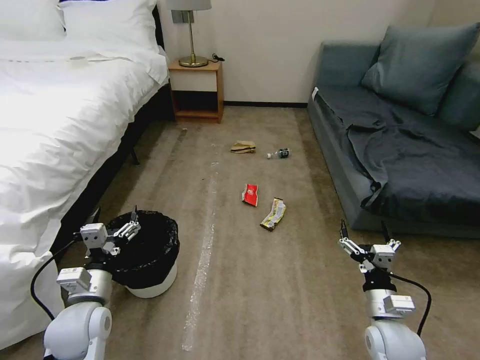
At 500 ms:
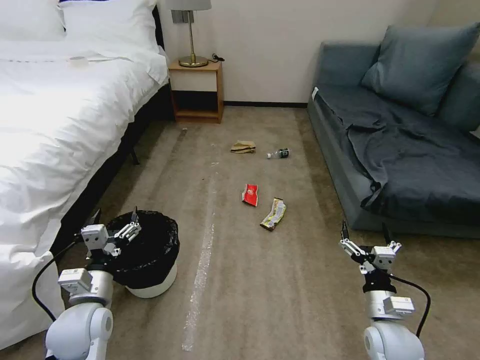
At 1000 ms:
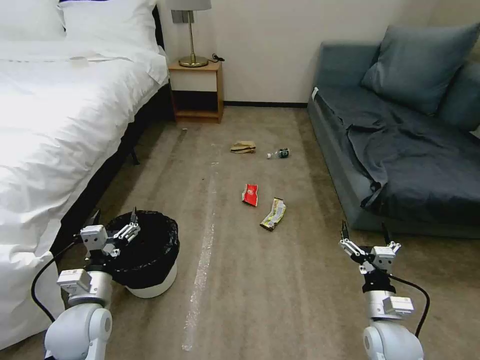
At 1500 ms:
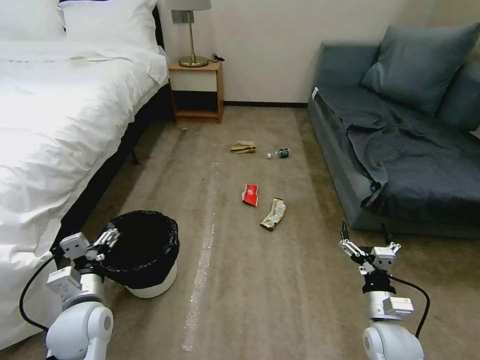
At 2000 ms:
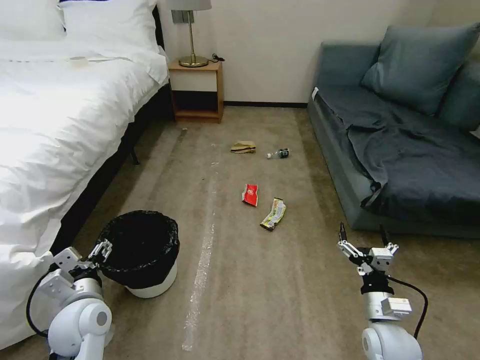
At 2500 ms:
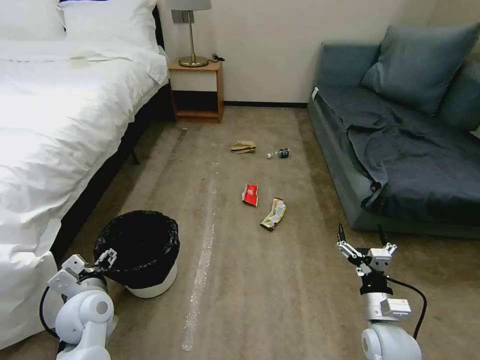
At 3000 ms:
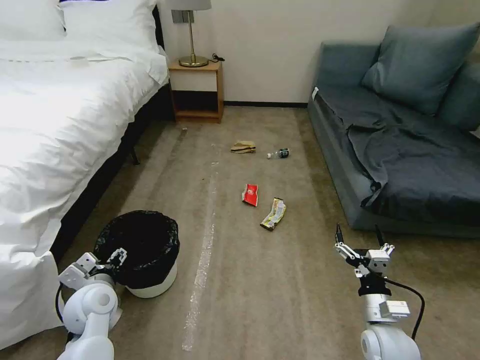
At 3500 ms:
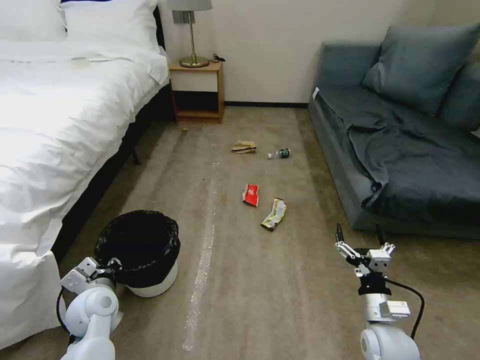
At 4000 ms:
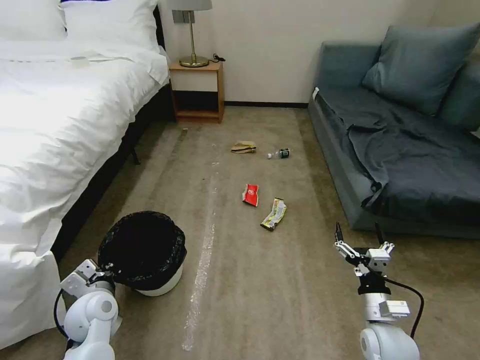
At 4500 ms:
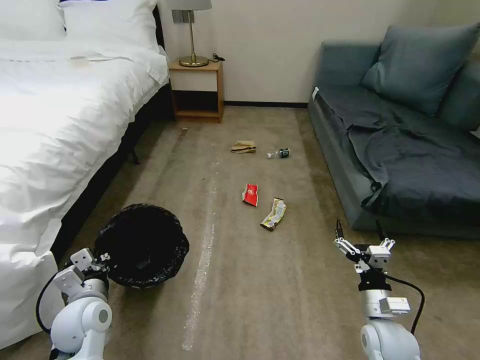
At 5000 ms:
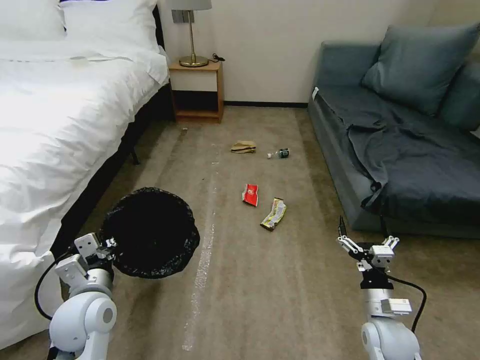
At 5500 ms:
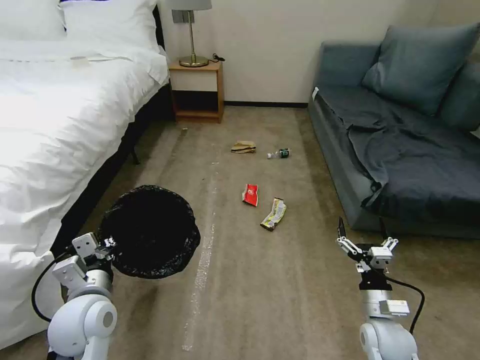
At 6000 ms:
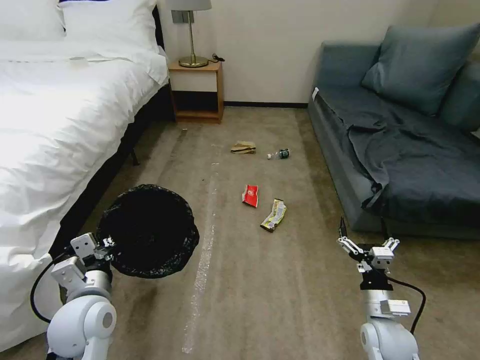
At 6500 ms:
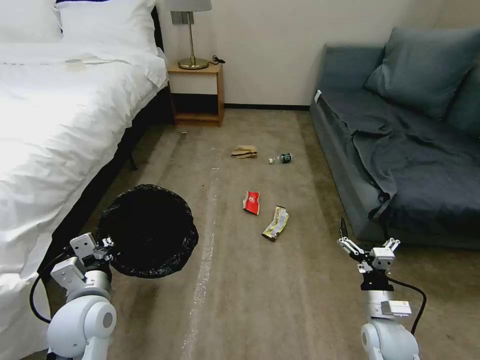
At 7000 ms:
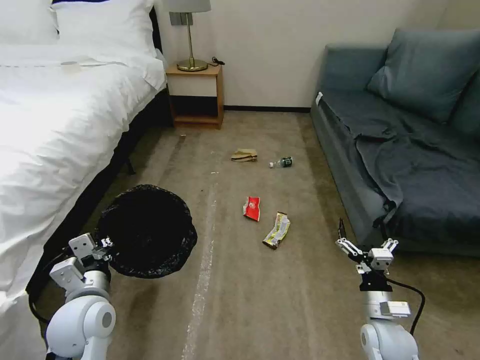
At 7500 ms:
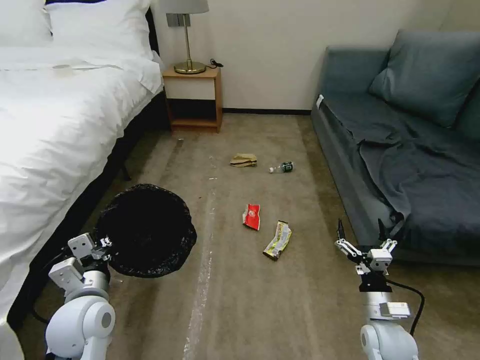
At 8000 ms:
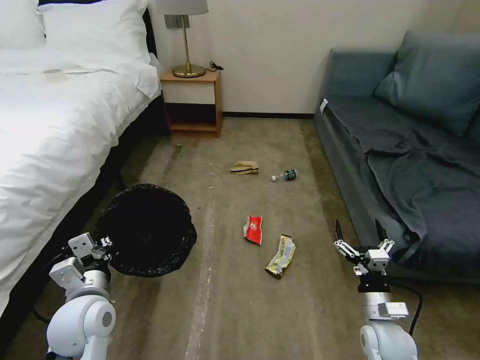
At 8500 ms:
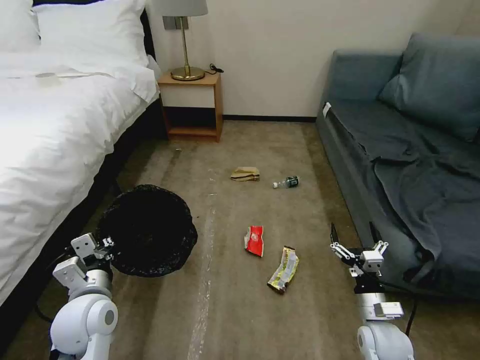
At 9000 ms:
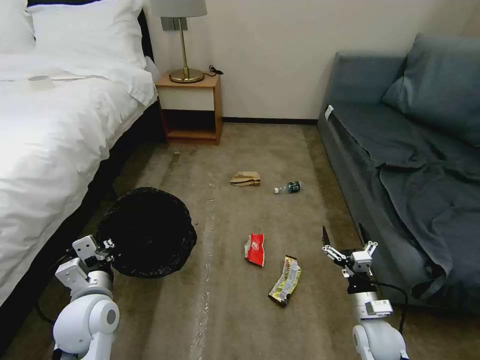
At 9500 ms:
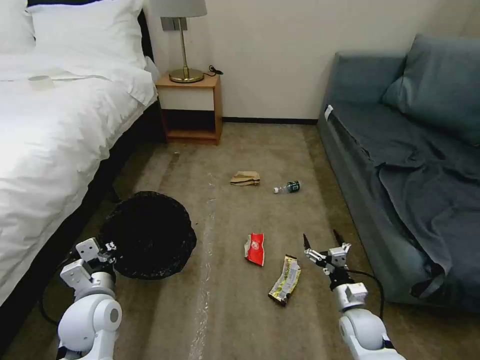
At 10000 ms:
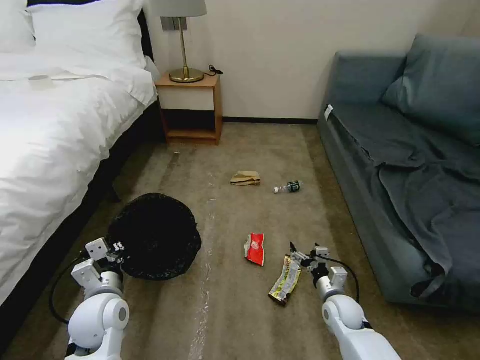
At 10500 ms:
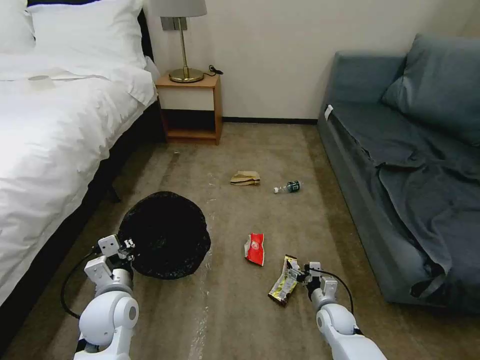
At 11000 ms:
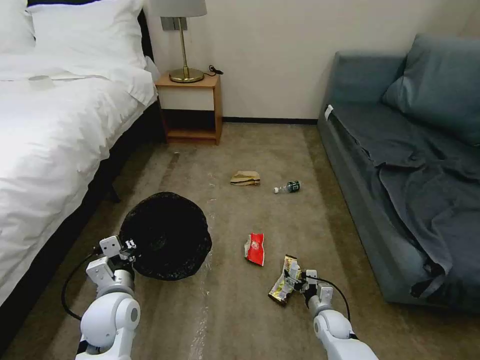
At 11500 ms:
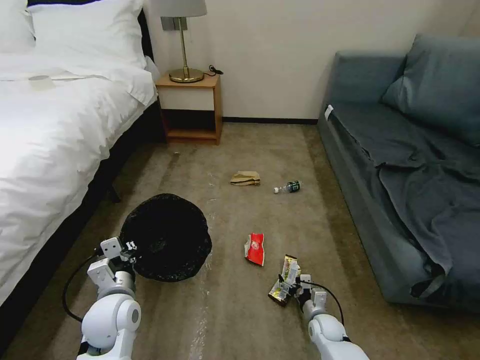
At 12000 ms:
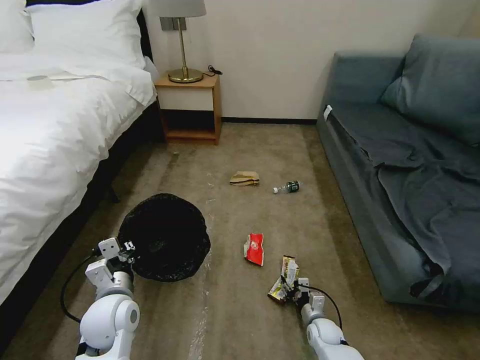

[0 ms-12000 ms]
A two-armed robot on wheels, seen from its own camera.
Task of the whole recording: Pick up the trash bin, then pick up the garbage on the floor and place it into the trash bin.
2000 ms to 4000 ms: The left gripper changes place by some 5 cm, and closes up.
4000 ms to 6000 ms: The left gripper goes approximately 10 cm upward.
8000 ms to 10000 ms: The right gripper moves forward and downward, approximately 10 cm.
10000 ms to 12000 ms: The right gripper shifts approximately 10 cm downward, and closes up.

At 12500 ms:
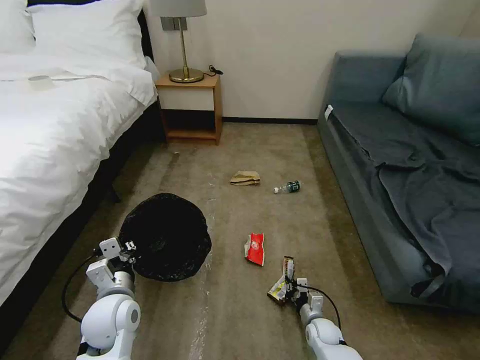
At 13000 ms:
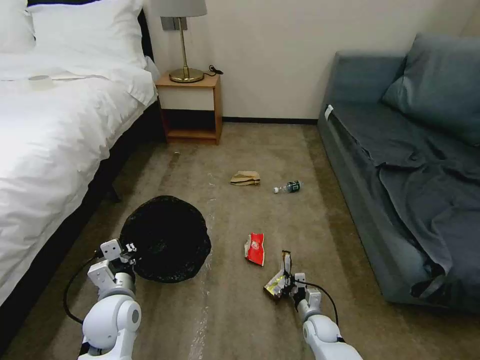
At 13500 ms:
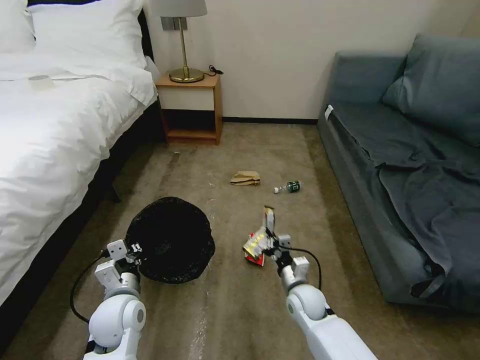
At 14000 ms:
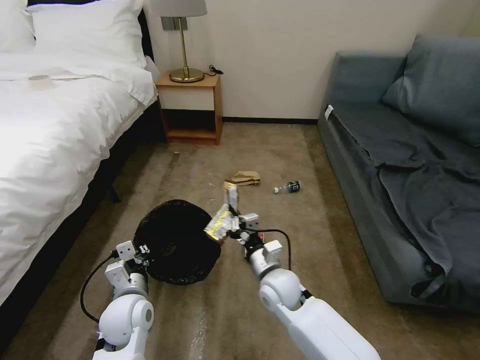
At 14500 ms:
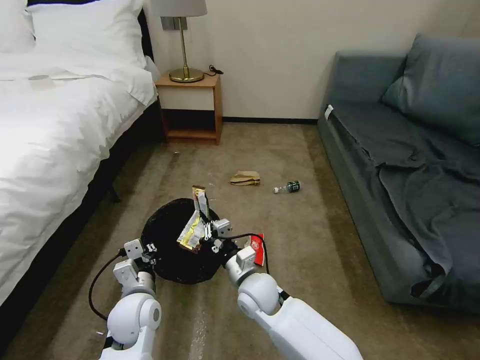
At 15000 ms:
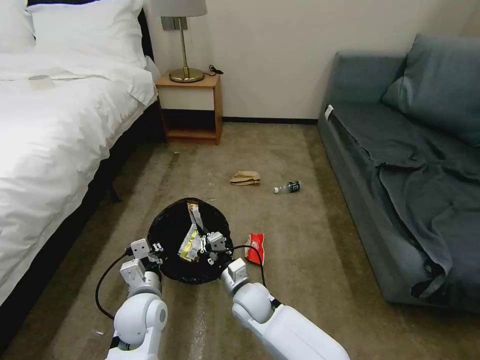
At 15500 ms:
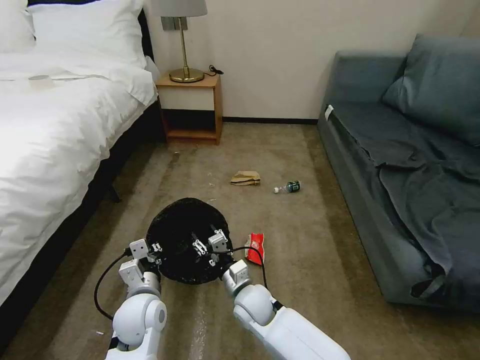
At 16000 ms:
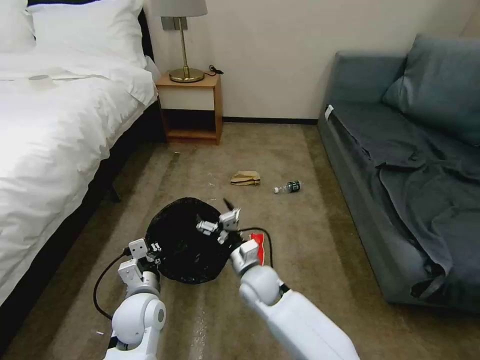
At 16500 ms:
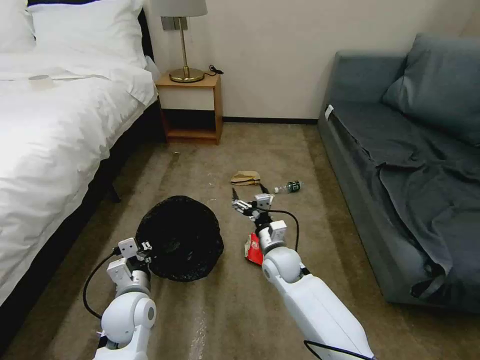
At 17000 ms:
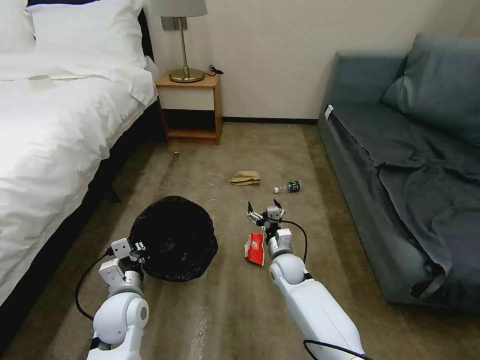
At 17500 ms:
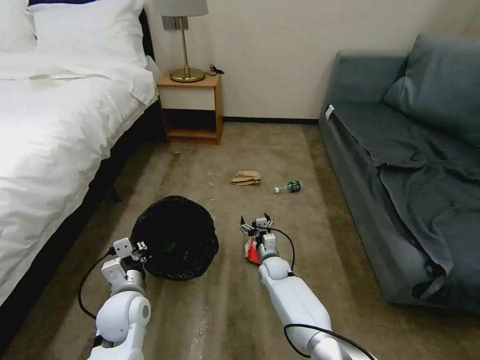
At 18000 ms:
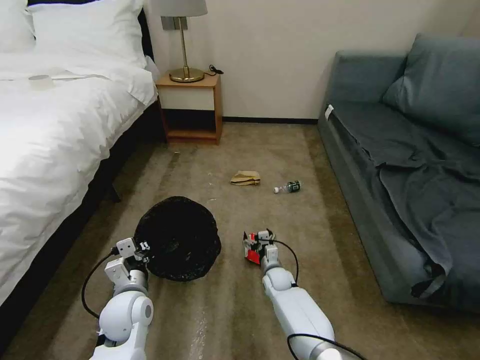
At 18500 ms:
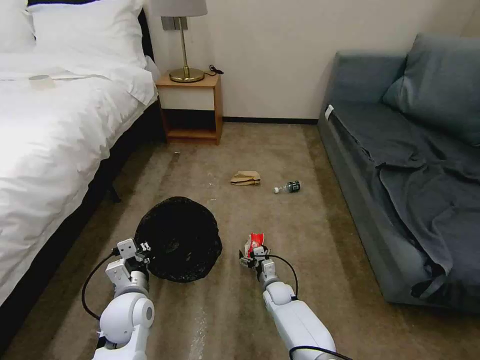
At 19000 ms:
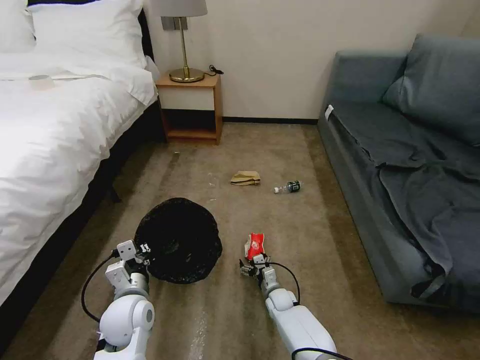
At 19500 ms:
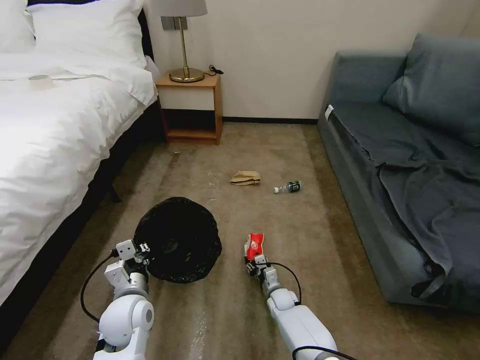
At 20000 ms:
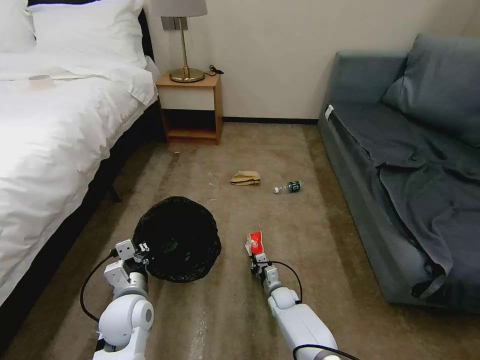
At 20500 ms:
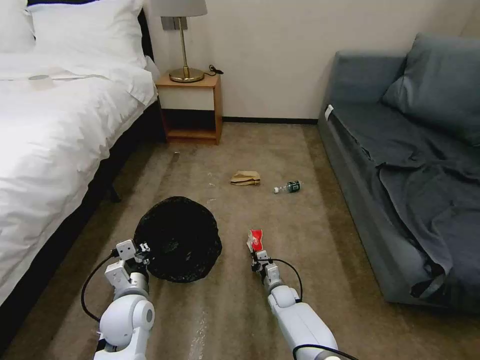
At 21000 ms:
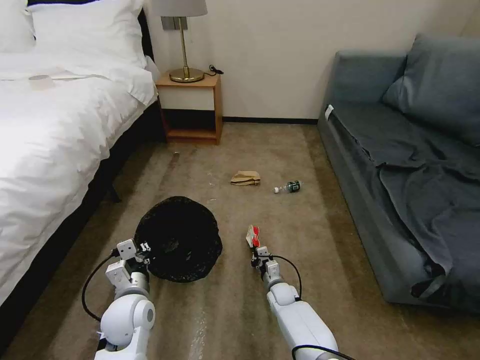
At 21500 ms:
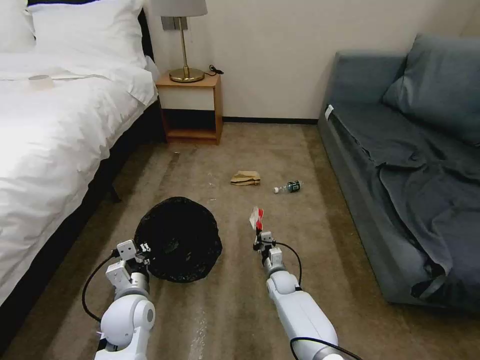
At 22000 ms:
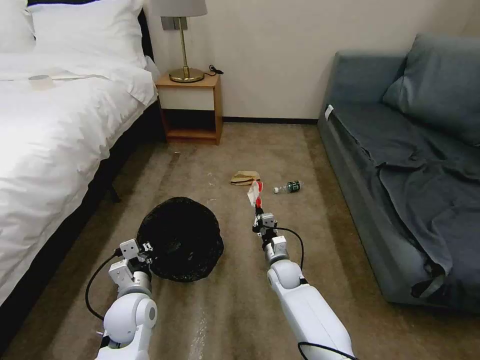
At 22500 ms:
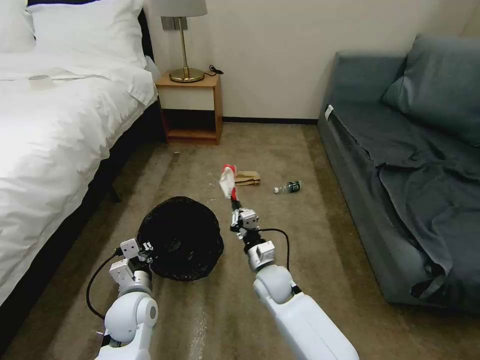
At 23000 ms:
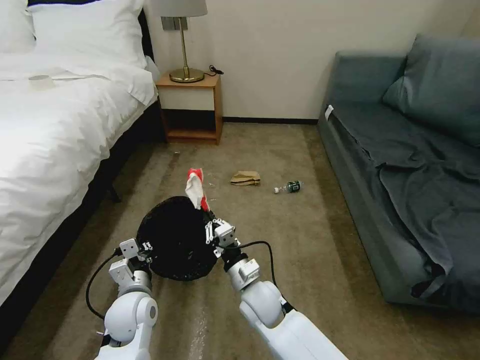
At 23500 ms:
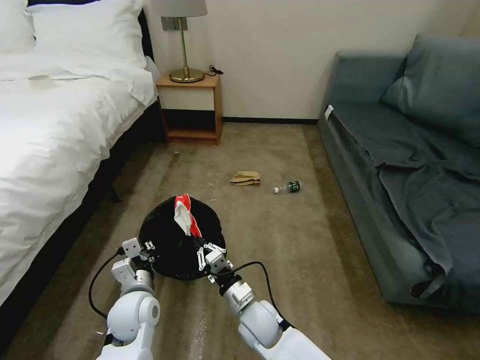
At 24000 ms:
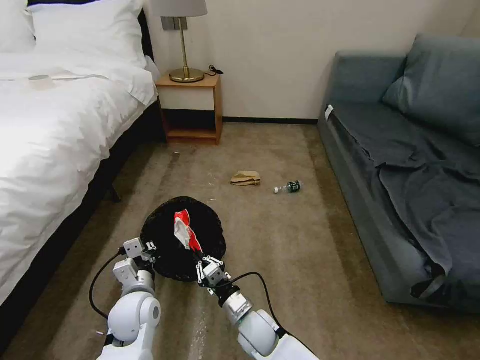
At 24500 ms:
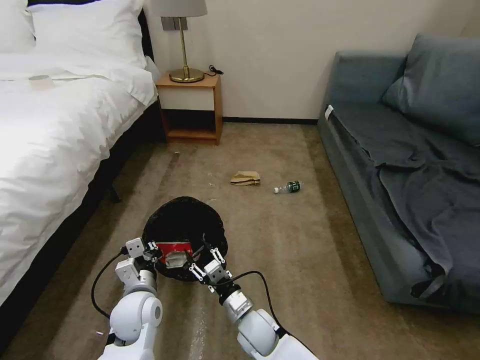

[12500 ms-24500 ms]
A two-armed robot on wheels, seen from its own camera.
Task of the whole recording: Pick up the trash bin, then pick up the garbage on the floor and place it into the trash bin.
12500 ms to 14500 ms: The right gripper moves upward and to the left, some 30 cm.
14500 ms to 16500 ms: The right gripper moves forward and to the right, roughly 10 cm, and opens up.
16500 ms to 18500 ms: The right gripper travels downward by some 20 cm.
18500 ms to 20500 ms: The right gripper closes its fingers.
20500 ms to 22500 ms: The right gripper moves upward, about 20 cm.
22500 ms to 24500 ms: The right gripper goes about 10 cm backward and downward, and opens.

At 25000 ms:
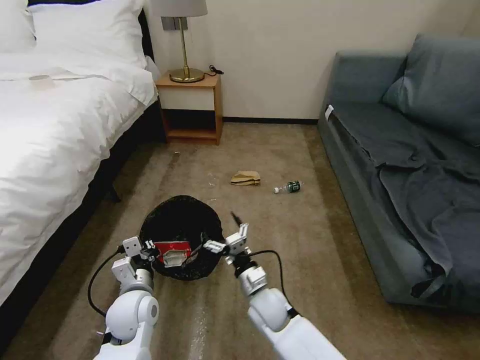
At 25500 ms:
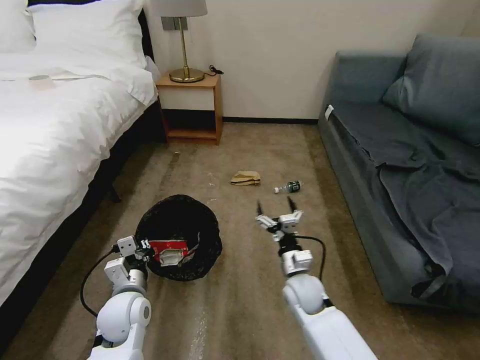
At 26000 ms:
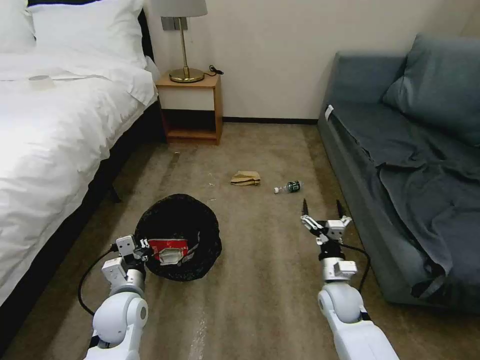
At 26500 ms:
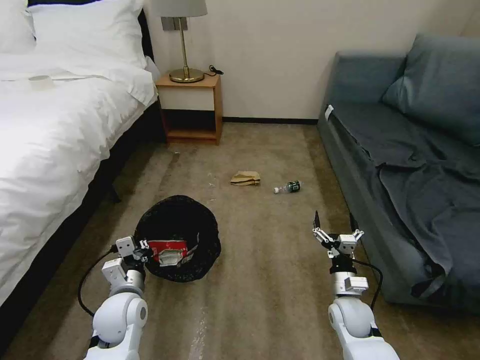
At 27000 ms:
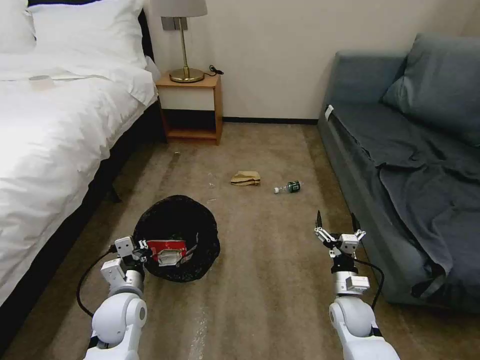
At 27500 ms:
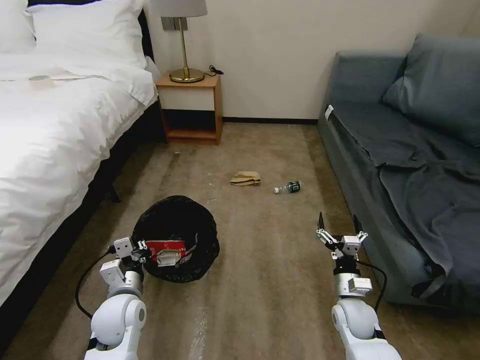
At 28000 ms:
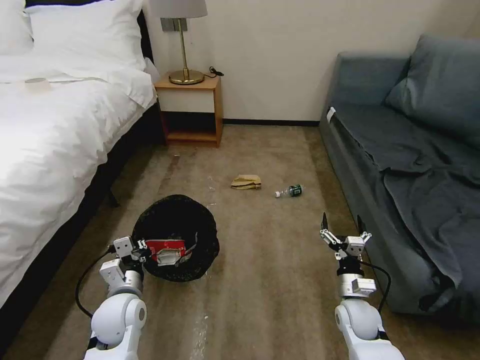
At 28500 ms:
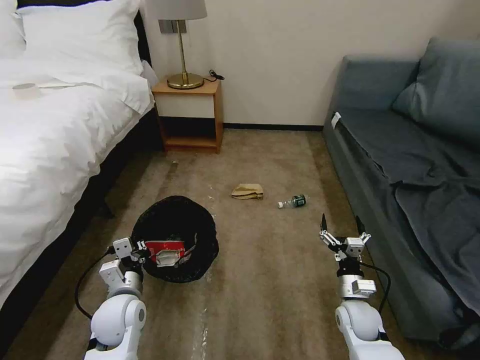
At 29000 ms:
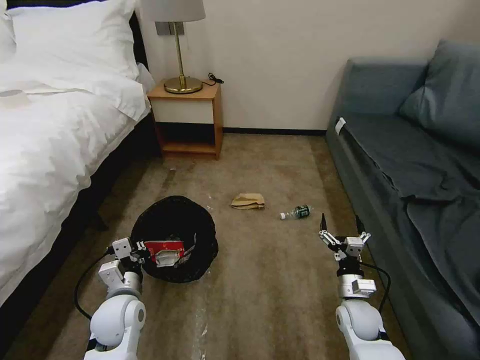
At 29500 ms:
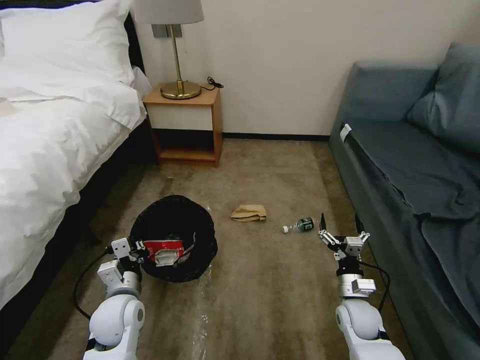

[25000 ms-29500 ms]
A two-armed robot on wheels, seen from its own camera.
Task of the whole recording: Pick up the trash bin, then pick up the garbage on the floor and place it into the trash bin.
25000 ms to 27000 ms: The right gripper is displaced to the right by roughly 20 cm.